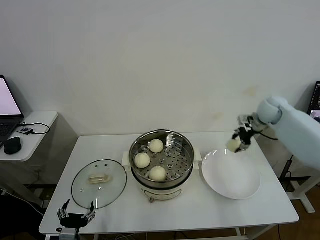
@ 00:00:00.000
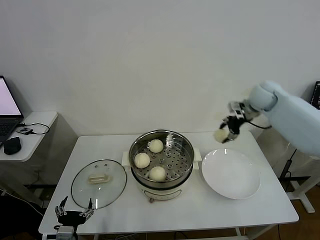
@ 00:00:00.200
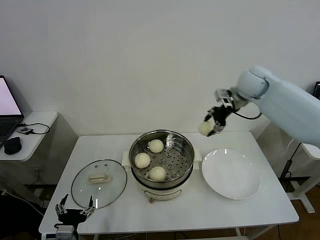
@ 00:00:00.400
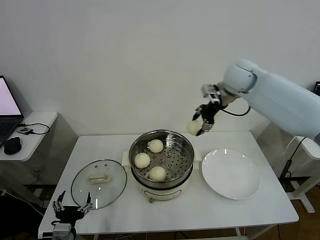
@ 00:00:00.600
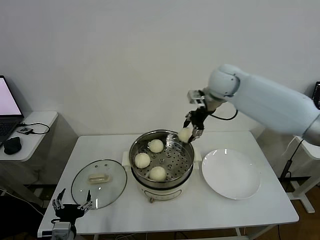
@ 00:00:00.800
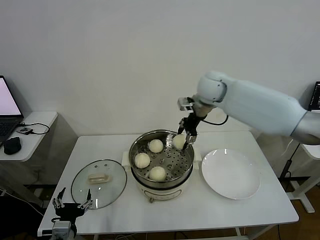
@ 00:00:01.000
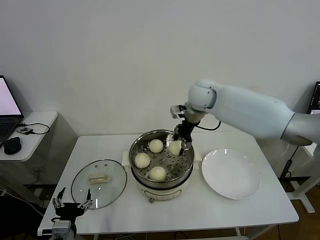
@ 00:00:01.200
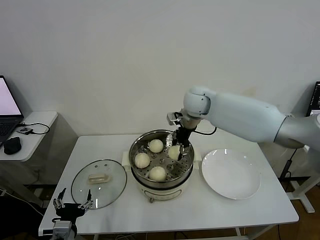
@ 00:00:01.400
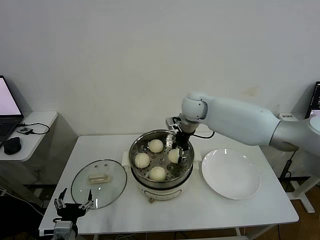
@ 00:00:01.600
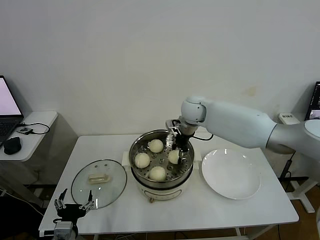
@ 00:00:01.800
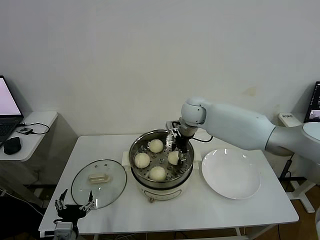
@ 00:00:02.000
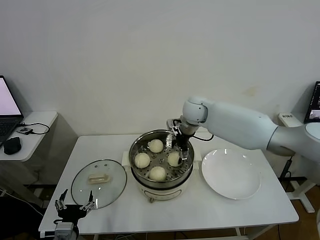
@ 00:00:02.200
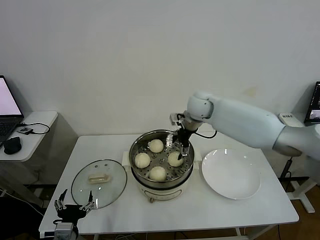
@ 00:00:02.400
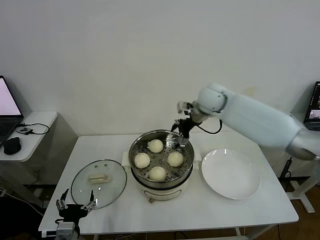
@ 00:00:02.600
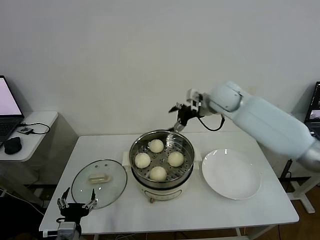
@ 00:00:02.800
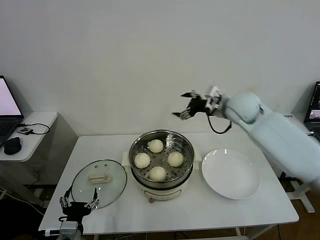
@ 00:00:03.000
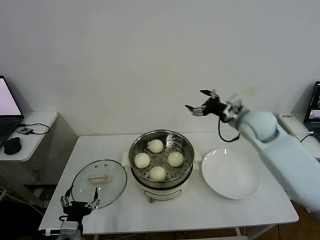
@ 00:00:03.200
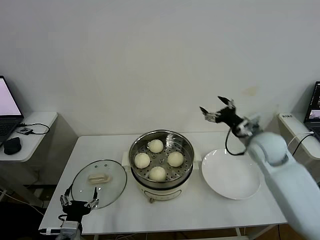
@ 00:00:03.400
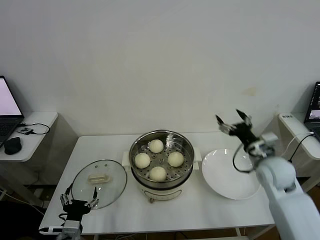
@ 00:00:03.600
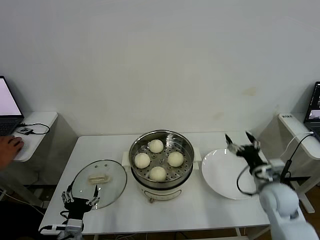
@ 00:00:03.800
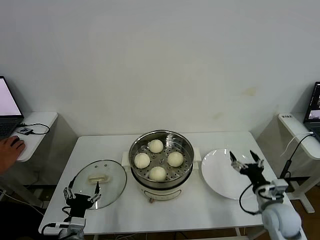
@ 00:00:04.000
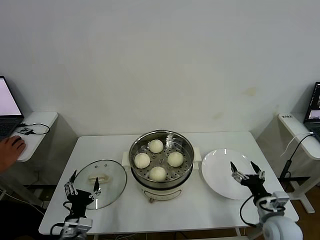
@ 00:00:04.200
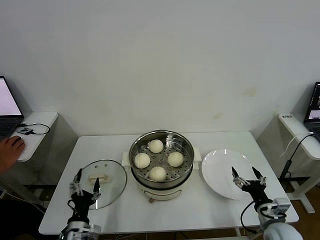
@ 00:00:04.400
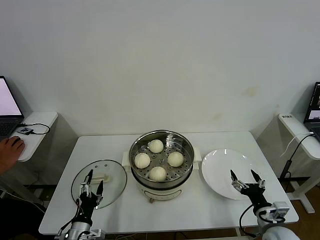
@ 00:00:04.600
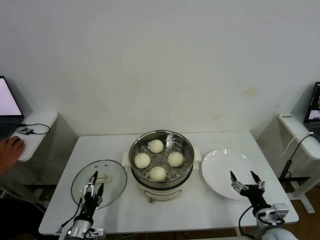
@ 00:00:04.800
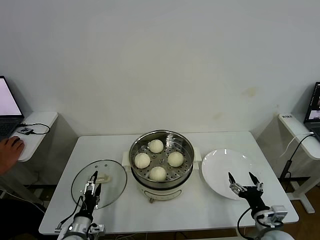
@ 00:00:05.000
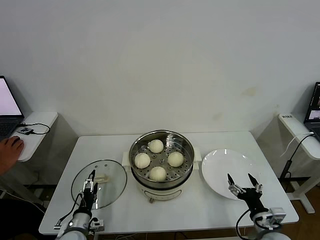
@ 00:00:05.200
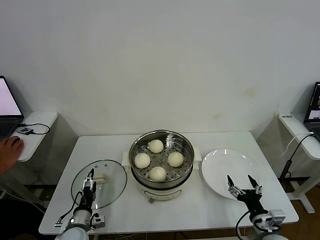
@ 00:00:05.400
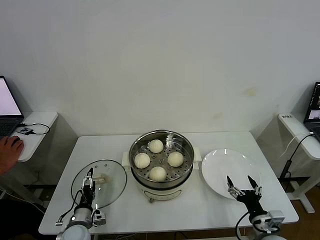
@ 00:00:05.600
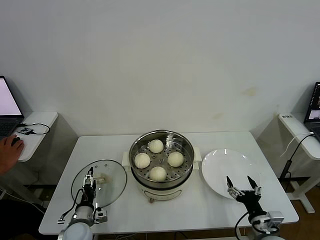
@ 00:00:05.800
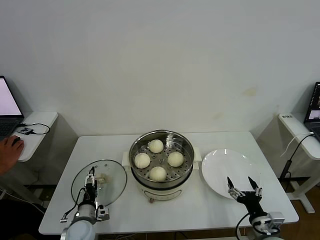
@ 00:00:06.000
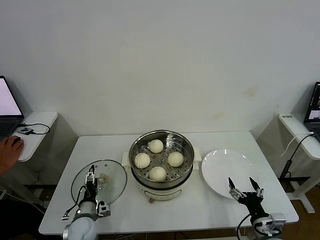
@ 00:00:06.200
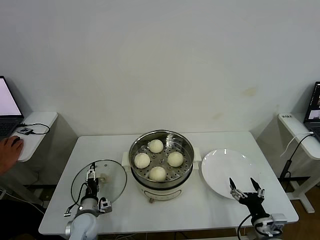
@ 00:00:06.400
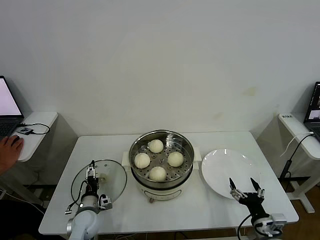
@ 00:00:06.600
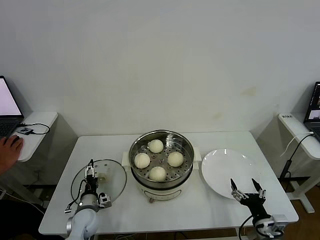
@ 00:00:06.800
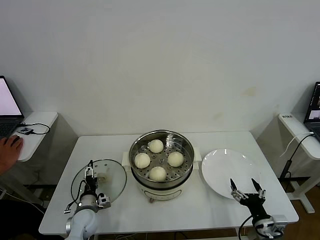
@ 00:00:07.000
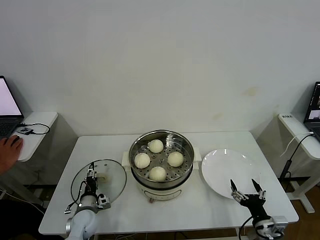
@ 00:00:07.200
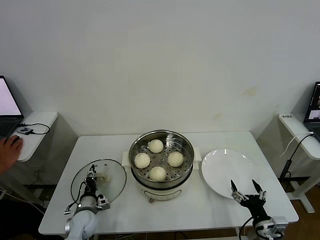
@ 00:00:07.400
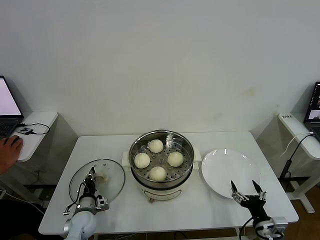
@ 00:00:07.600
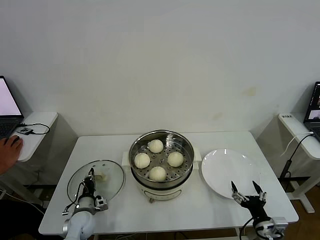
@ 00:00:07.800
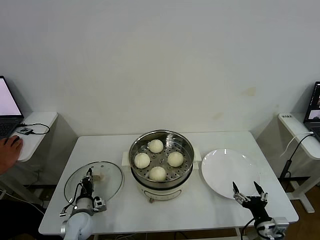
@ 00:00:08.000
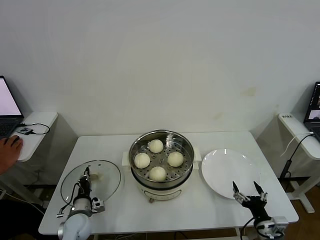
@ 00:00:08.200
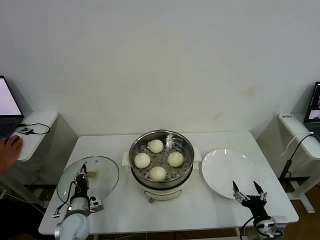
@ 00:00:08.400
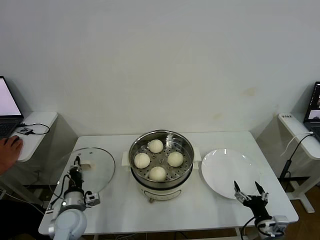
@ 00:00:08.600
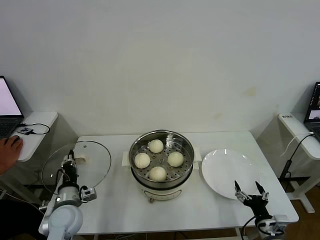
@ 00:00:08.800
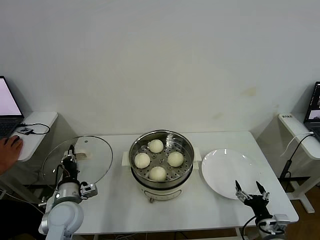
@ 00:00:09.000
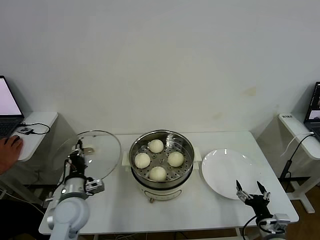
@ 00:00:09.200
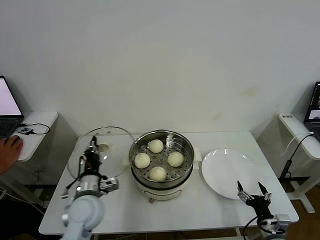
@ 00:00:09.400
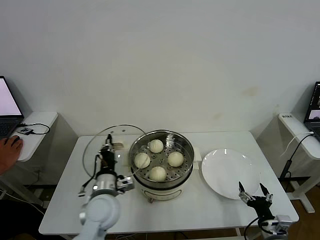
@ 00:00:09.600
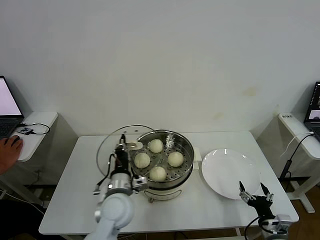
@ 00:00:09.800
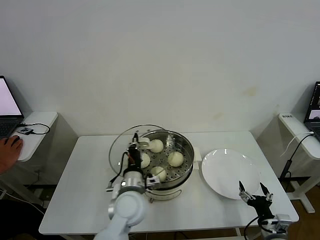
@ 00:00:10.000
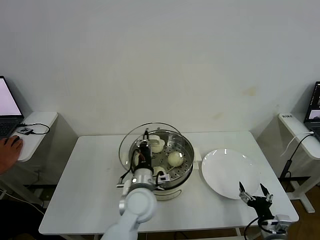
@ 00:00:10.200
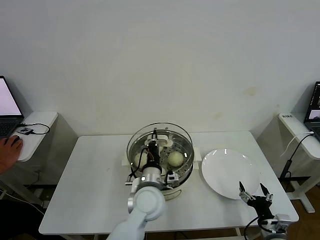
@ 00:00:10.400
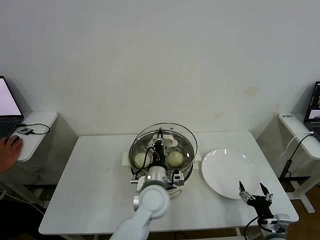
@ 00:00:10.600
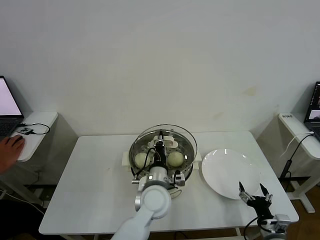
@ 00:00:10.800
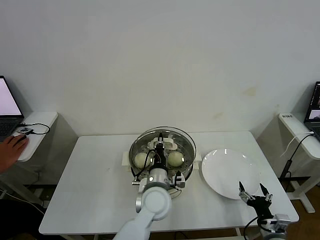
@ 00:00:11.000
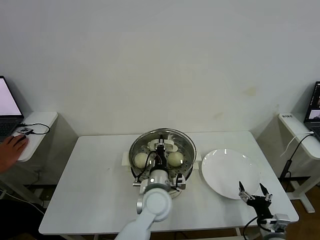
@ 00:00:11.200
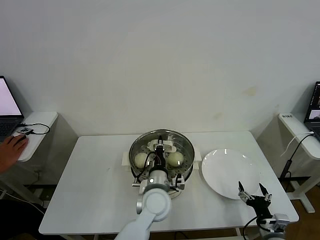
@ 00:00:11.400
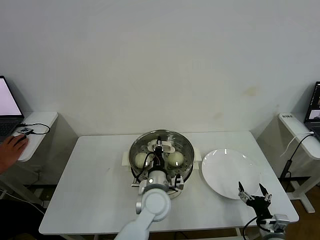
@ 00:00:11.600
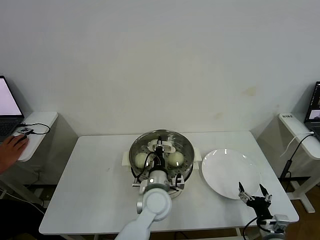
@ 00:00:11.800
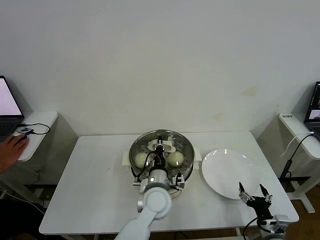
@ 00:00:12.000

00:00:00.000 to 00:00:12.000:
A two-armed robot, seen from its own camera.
Step, 00:00:00.000 to 00:00:02.000: Place the baozi on the steamer with right gripper.
Step, 00:00:02.200 to 00:00:07.800: Grasp the pot lid with left gripper.
00:00:00.000 to 00:00:01.600: The right gripper is displaced to the left by about 30 cm.
00:00:01.600 to 00:00:03.000: The right gripper heads to the right, covering approximately 15 cm, and opens up.
00:00:03.000 to 00:00:04.400: The left gripper moves downward, roughly 5 cm; the right gripper goes about 40 cm backward and downward.
00:00:04.400 to 00:00:06.000: The left gripper goes about 10 cm forward and downward.
00:00:06.000 to 00:00:07.600: The left gripper closes its fingers.
00:00:07.600 to 00:00:09.000: The left gripper travels upward by about 15 cm.
00:00:09.000 to 00:00:10.400: The left gripper shifts approximately 25 cm to the right.
00:00:10.400 to 00:00:12.000: The grippers move only a little.

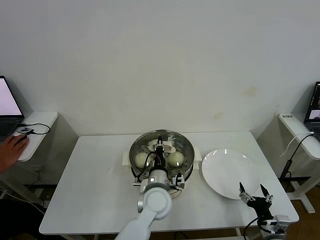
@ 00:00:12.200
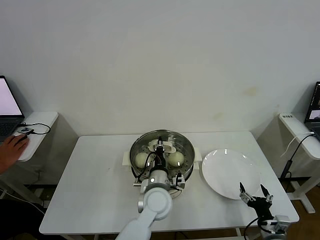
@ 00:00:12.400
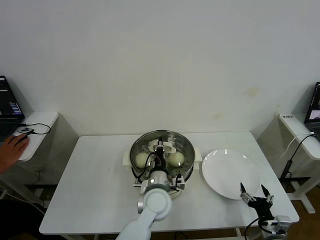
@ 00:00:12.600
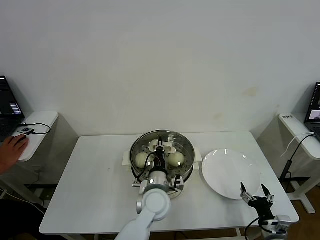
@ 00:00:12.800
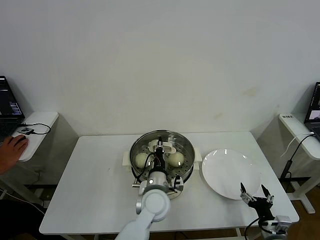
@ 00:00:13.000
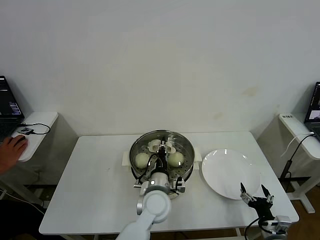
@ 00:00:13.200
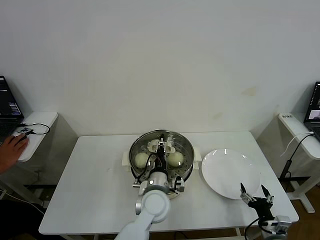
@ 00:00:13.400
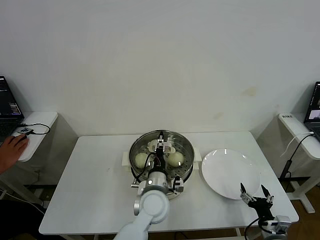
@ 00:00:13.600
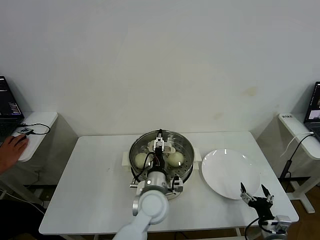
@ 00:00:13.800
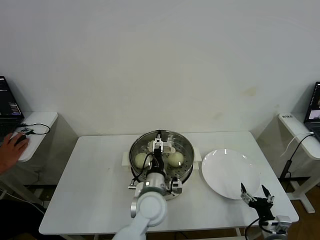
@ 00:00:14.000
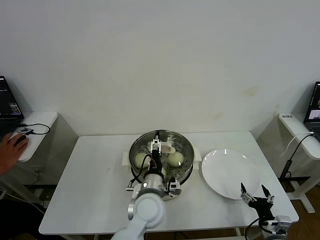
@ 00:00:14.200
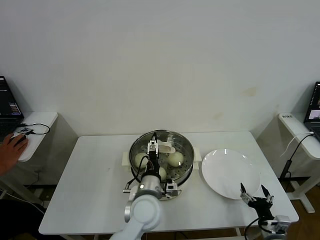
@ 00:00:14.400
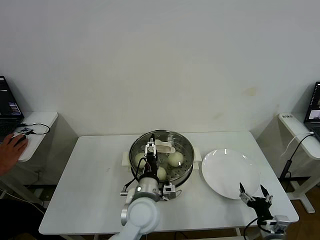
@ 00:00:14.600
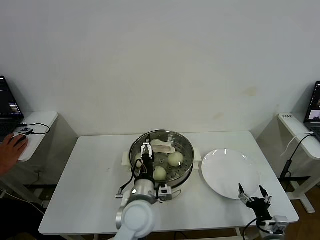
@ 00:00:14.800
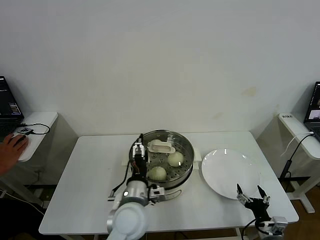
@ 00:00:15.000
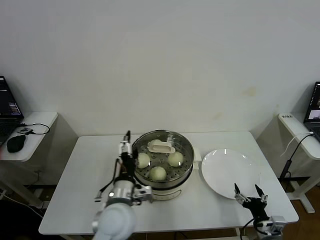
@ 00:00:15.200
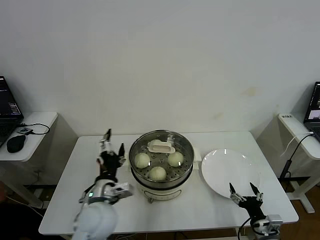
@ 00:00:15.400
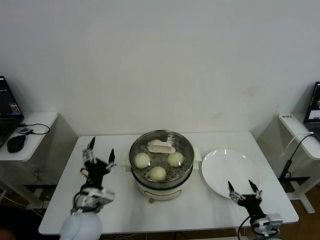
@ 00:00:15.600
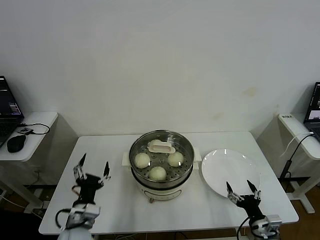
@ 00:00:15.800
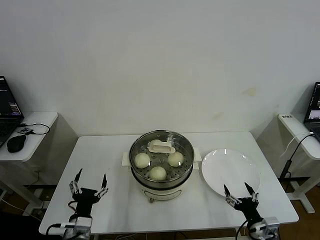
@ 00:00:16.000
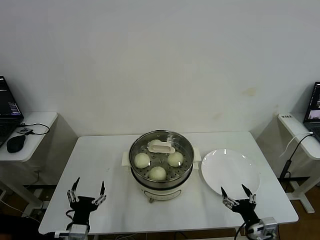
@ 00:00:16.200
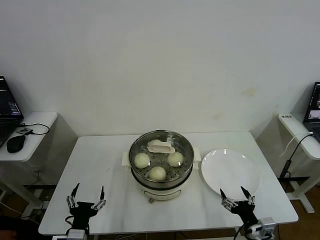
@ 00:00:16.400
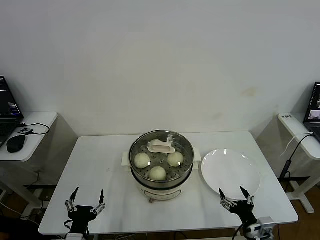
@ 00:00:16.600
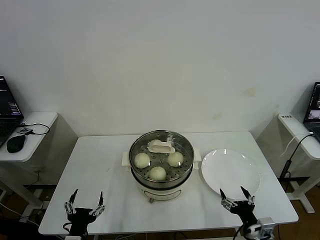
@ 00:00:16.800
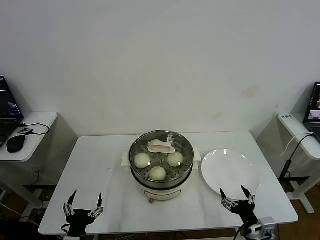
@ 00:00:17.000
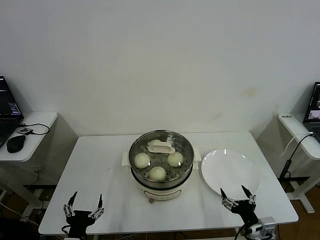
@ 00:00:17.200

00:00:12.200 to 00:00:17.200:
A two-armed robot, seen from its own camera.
00:00:12.200 to 00:00:13.800: The left gripper opens its fingers.
00:00:13.800 to 00:00:15.600: The left gripper is displaced to the left by about 20 cm.
00:00:15.600 to 00:00:17.200: The left gripper is displaced backward and downward by about 15 cm.
